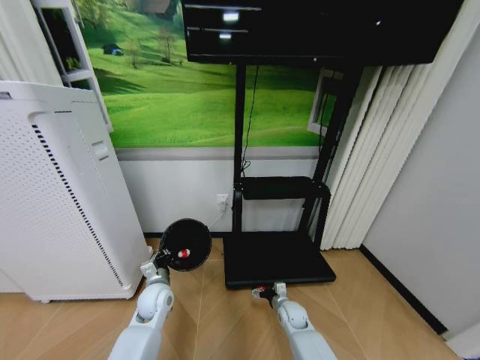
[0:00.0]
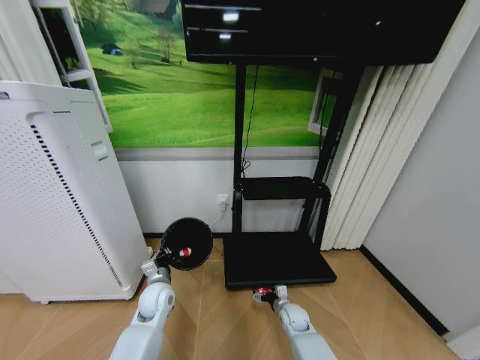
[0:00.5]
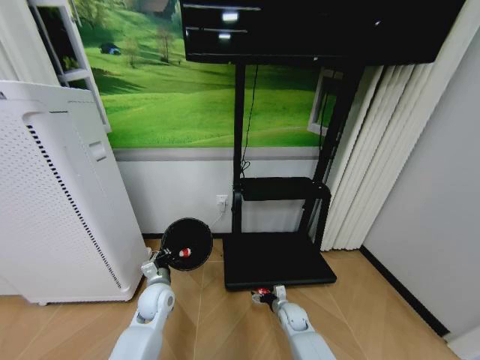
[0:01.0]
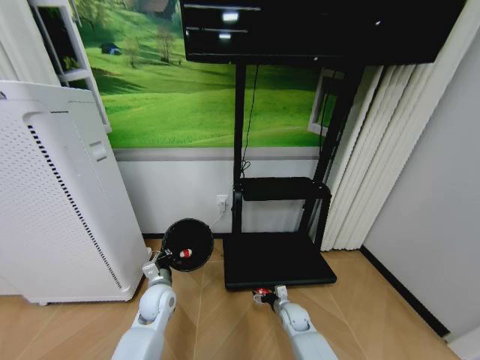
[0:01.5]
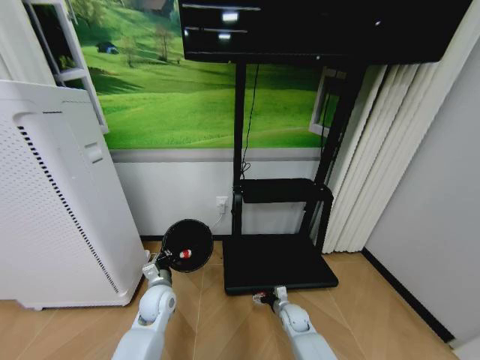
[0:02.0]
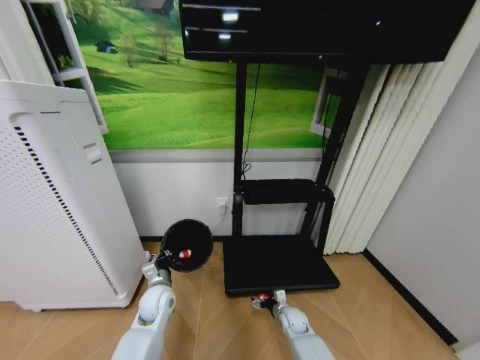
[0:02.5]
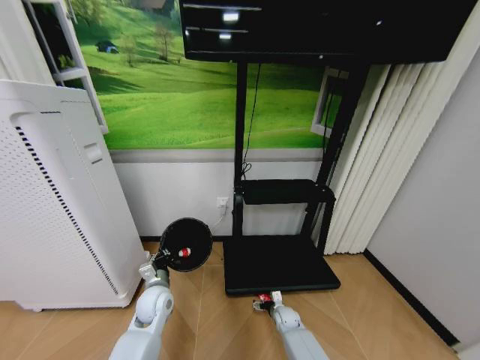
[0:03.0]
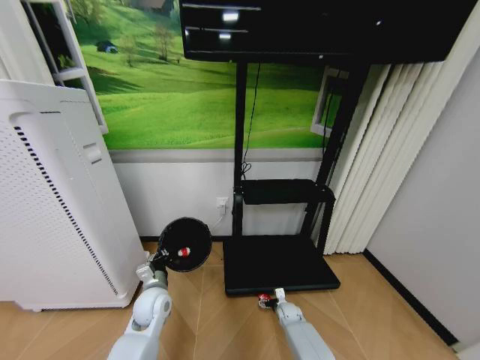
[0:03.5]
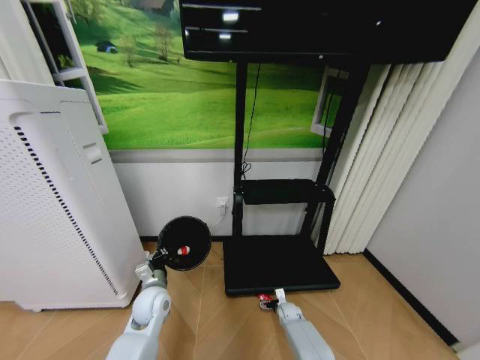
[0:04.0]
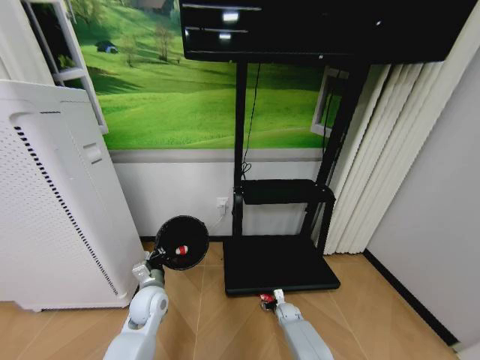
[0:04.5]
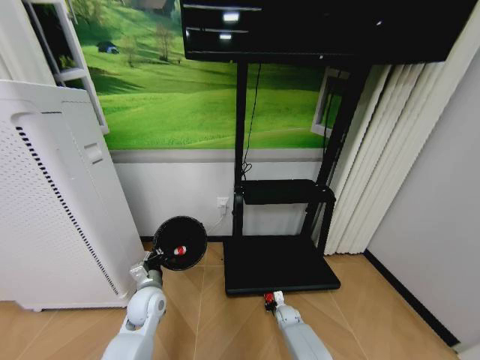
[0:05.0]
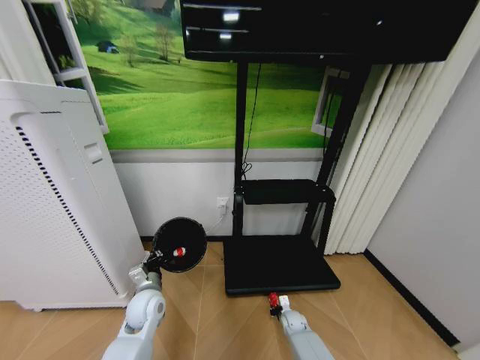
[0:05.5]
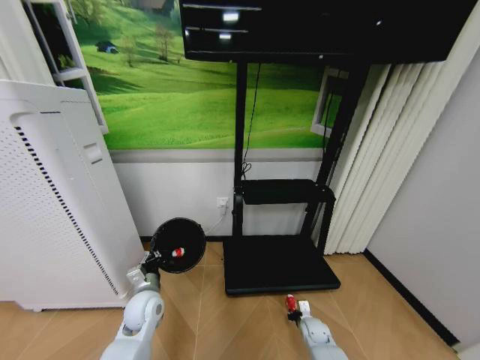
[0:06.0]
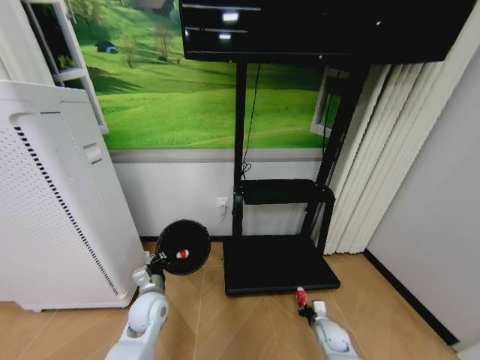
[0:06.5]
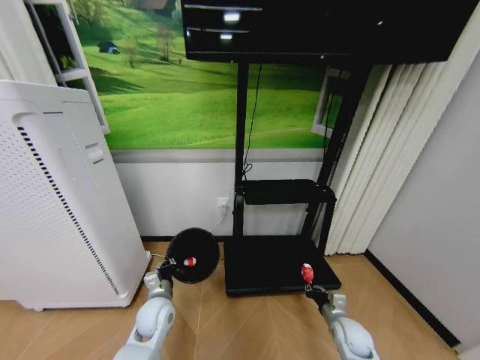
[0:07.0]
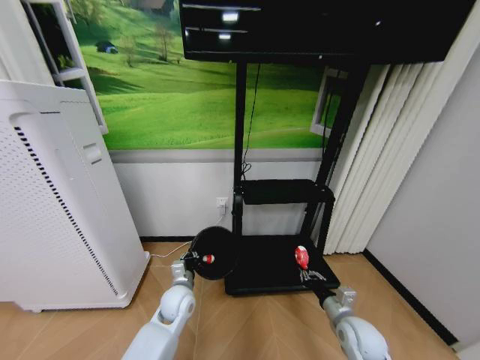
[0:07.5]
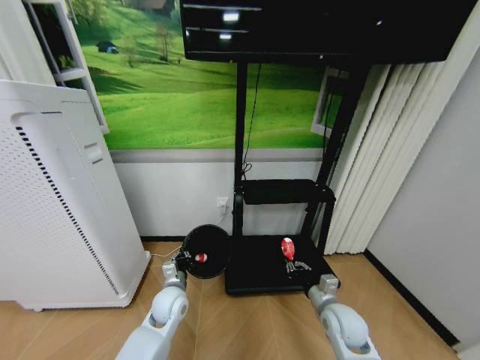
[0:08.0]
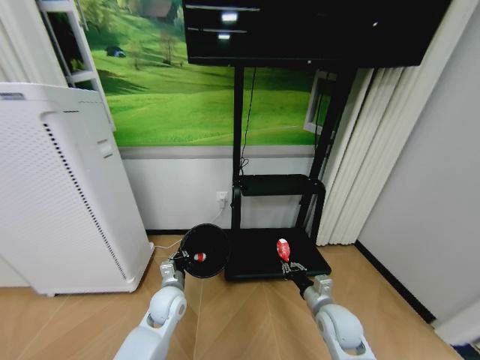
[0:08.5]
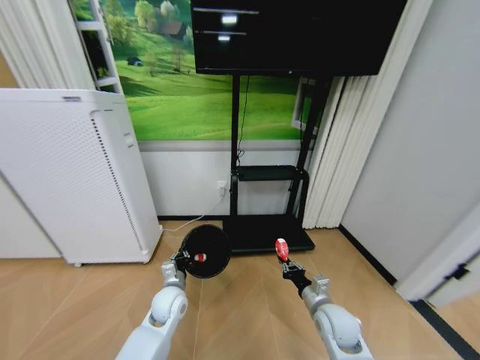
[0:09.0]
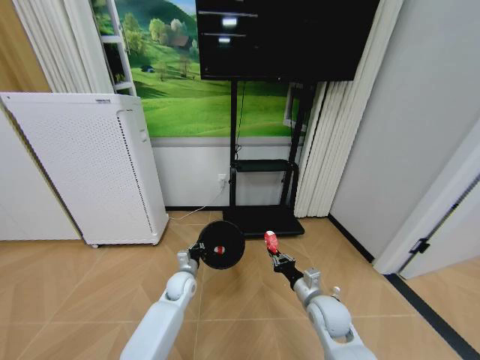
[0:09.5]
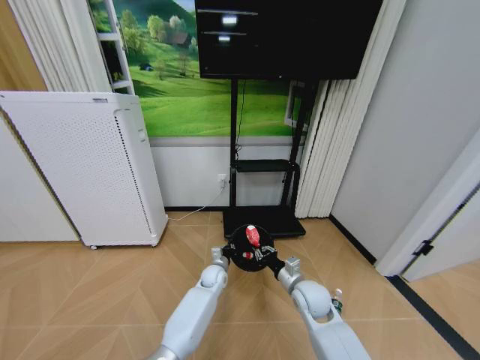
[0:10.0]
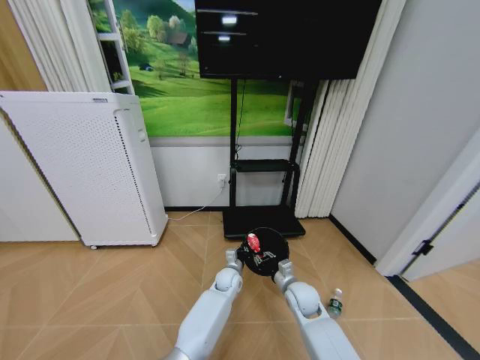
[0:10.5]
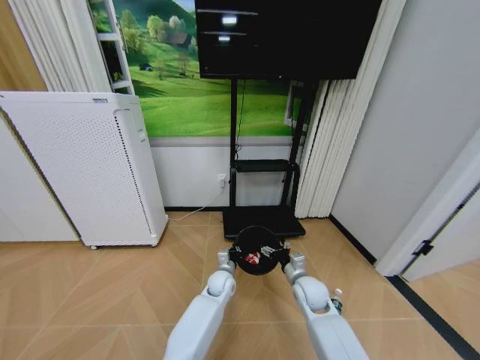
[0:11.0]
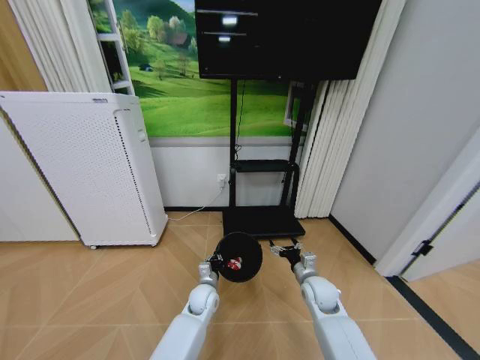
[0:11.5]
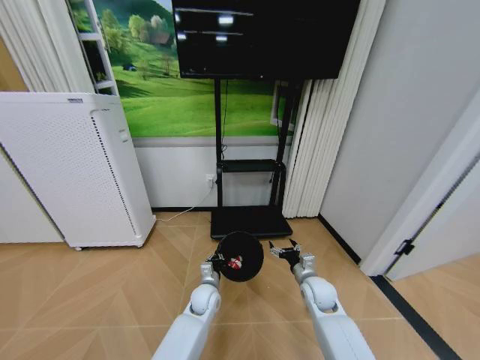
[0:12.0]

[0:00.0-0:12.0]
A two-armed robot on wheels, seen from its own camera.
Task of the whole recording: Pick up the trash bin and place the garbage on the floor into it.
0:00.0 to 0:02.0: There are only small adjustments of the grippers.
0:02.0 to 0:04.0: The right gripper moves downward, roughly 10 cm.
0:04.0 to 0:06.0: The right gripper shifts roughly 10 cm backward and to the right, and closes its fingers.
0:06.0 to 0:08.0: The right gripper moves upward, about 20 cm, while the left gripper moves to the right, approximately 5 cm.
0:08.0 to 0:10.0: The right gripper shifts some 10 cm to the left and forward. The left gripper travels to the right, forward and downward by some 20 cm.
0:10.0 to 0:12.0: The left gripper shifts some 10 cm backward. The right gripper changes place by some 5 cm, and opens.

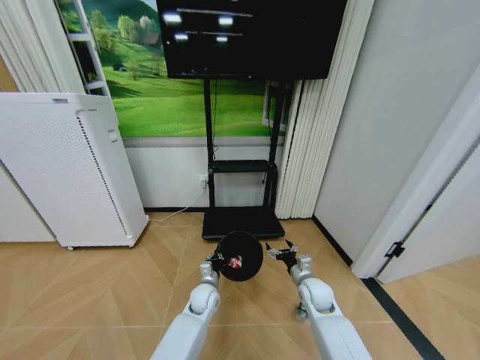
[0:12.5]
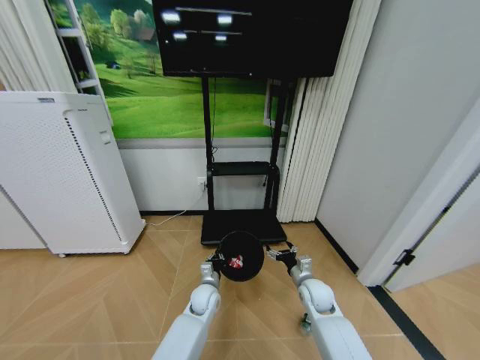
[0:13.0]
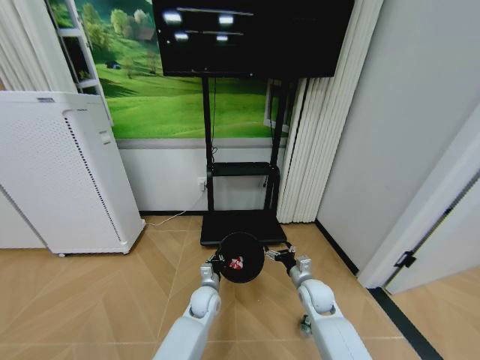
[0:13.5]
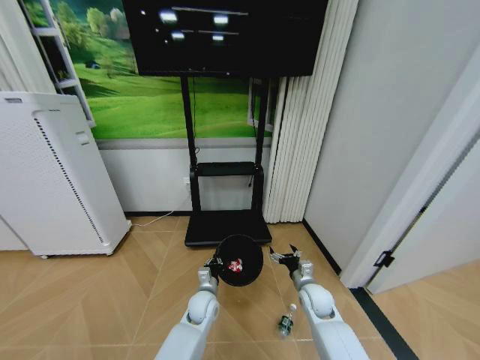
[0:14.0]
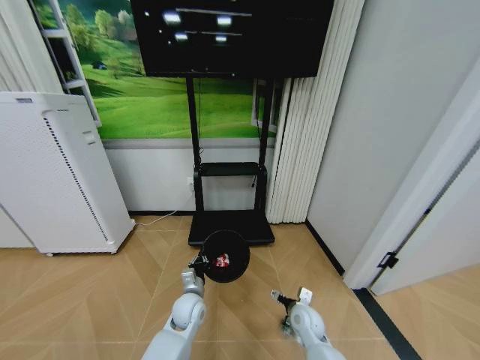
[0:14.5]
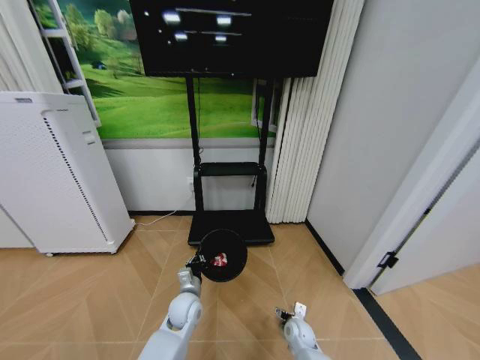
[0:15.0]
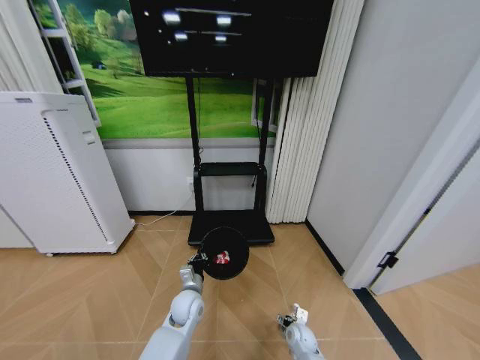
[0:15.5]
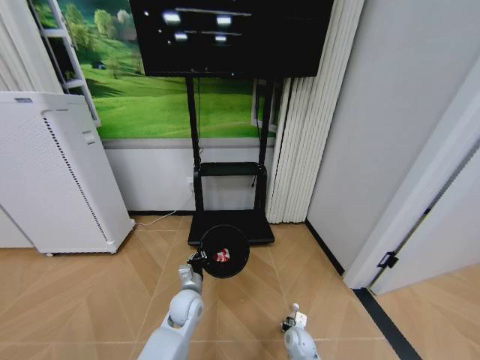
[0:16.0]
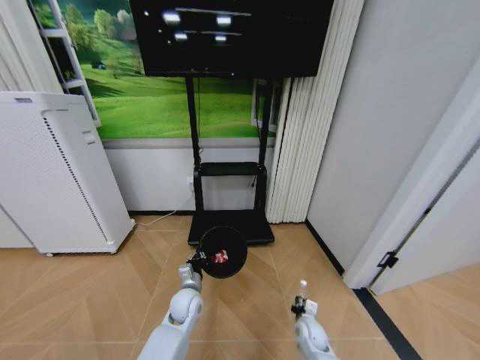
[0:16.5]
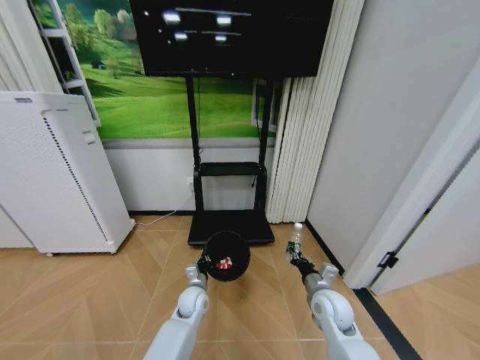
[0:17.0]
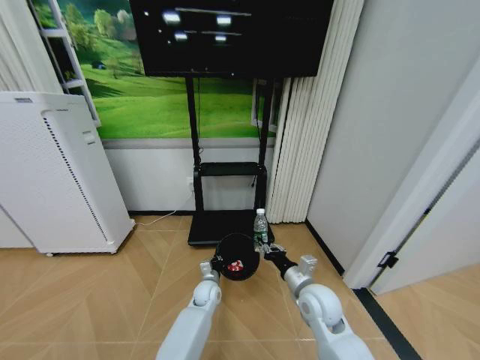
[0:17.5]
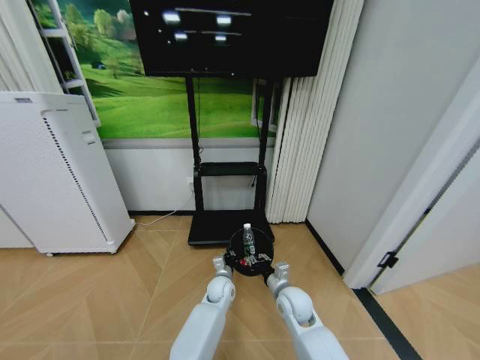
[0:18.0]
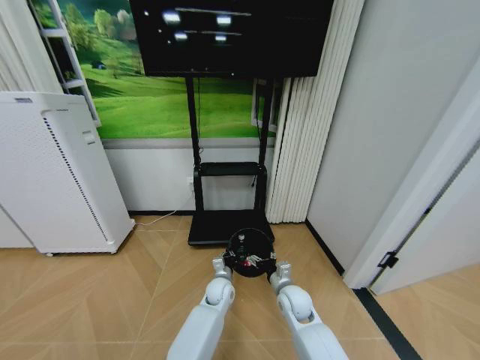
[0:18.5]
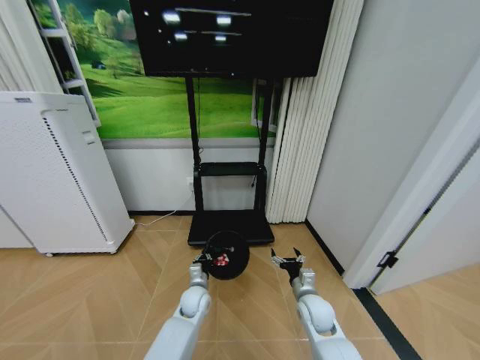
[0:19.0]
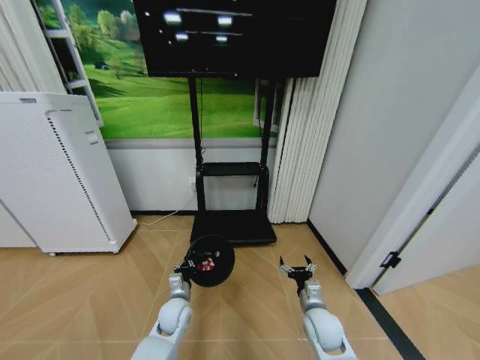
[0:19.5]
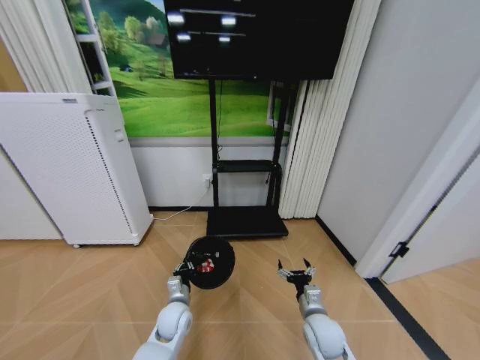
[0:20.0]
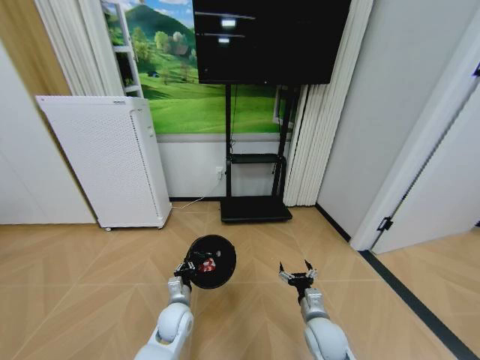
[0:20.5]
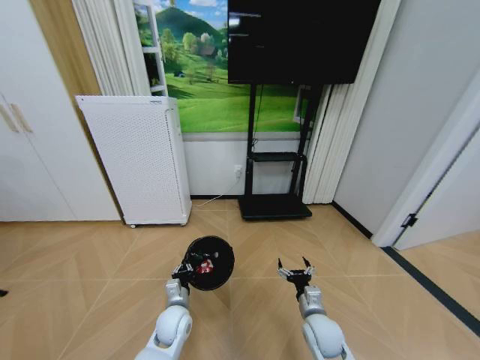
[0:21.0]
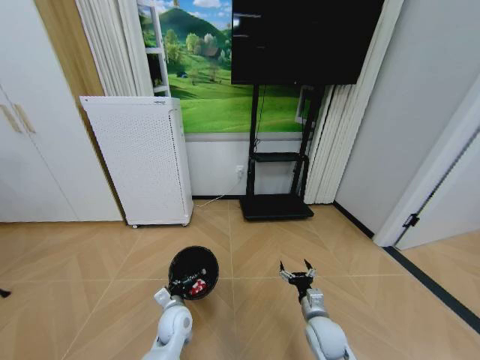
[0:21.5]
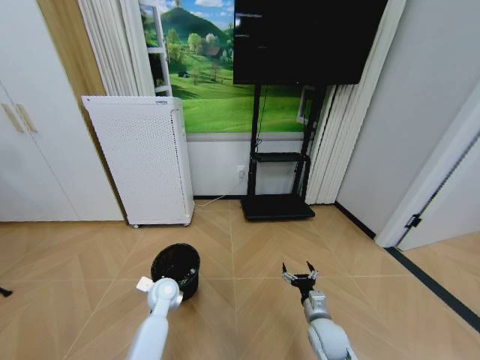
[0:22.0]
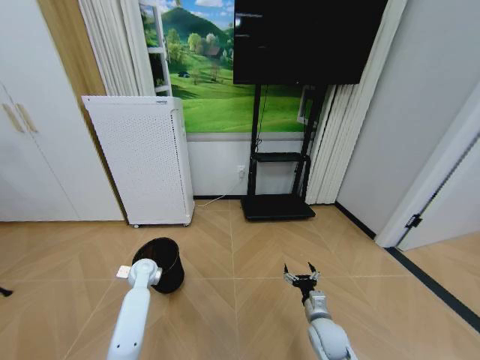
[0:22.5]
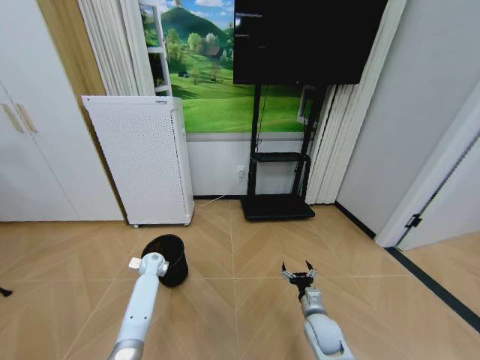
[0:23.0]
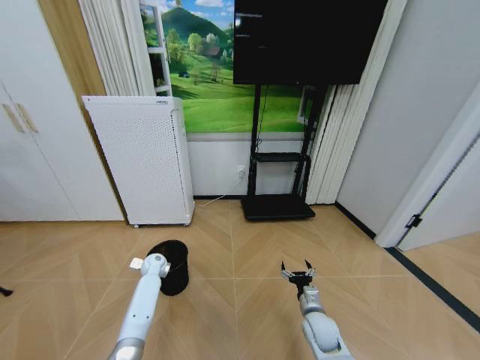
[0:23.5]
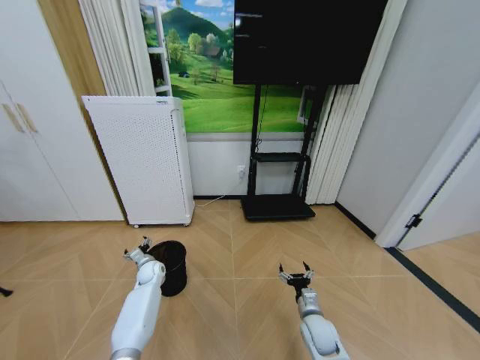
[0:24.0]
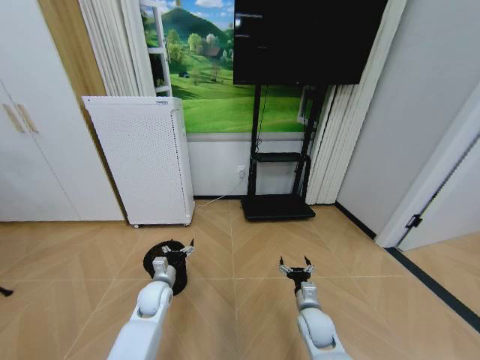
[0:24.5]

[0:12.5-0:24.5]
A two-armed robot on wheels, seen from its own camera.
Task of the whole recording: Pick up the trash bin and place the garbage on the floor into it.
0:12.5 to 0:14.5: The right gripper shifts approximately 5 cm downward. Meanwhile the left gripper shifts by approximately 5 cm.
0:14.5 to 0:16.5: The right gripper moves downward, approximately 10 cm, and closes up.
0:16.5 to 0:18.5: The right gripper moves upward and to the left, about 15 cm, and opens up; the left gripper goes roughly 10 cm to the right and forward.
0:18.5 to 0:20.5: The left gripper heads to the left and backward, covering roughly 15 cm, while the right gripper goes about 10 cm backward and to the right.
0:20.5 to 0:22.5: The right gripper ends up some 5 cm from where it was. Meanwhile the left gripper heads to the left and forward, covering approximately 20 cm.
0:22.5 to 0:24.5: The left gripper moves backward and to the right, roughly 10 cm, and opens its fingers.

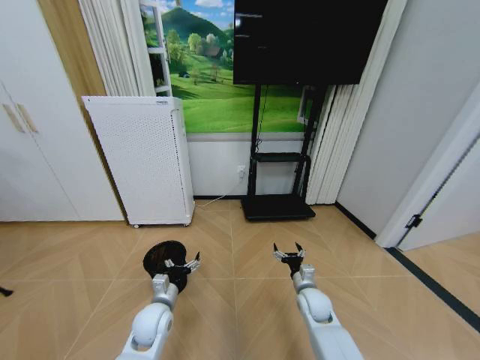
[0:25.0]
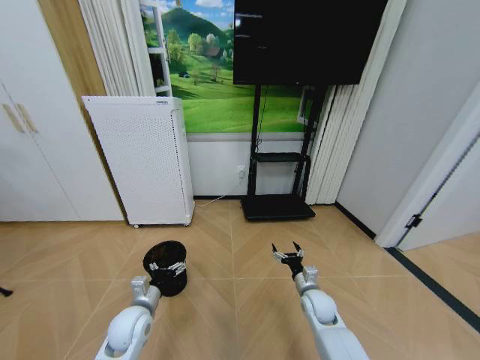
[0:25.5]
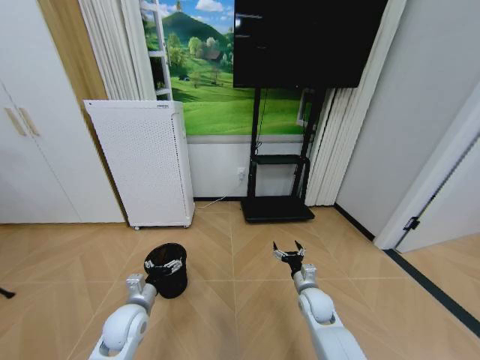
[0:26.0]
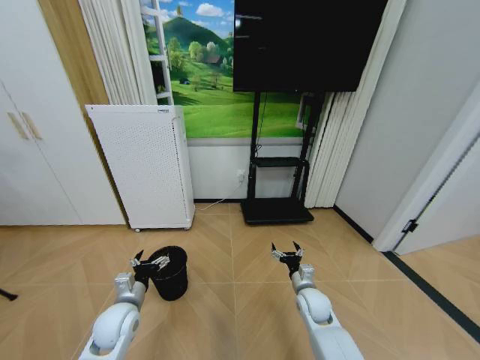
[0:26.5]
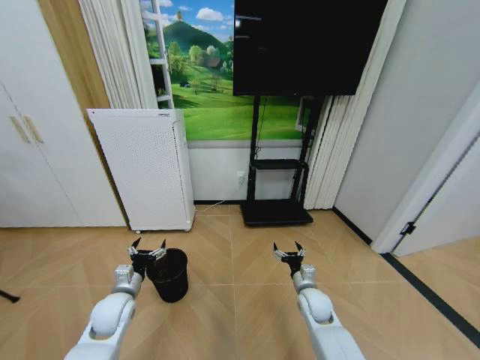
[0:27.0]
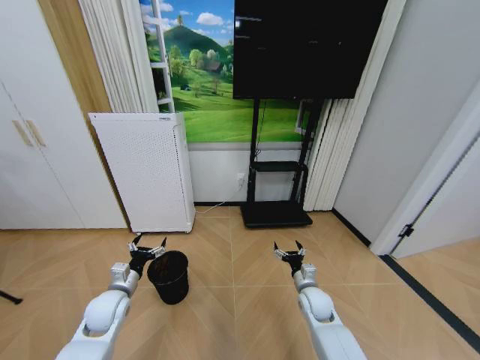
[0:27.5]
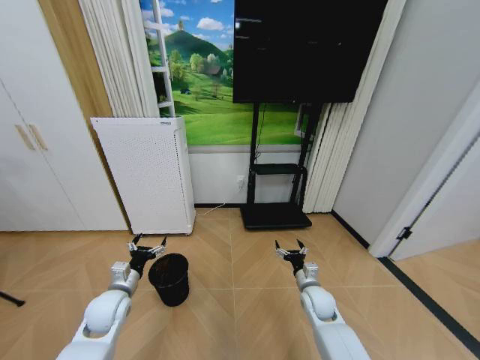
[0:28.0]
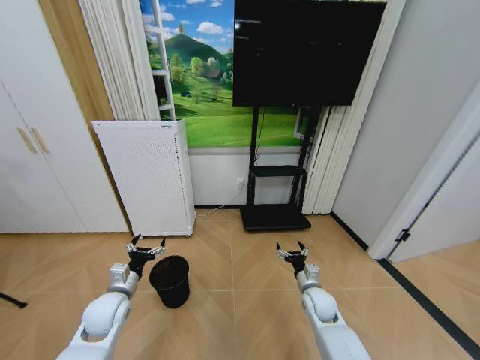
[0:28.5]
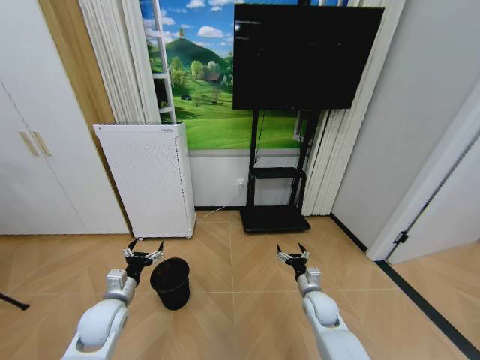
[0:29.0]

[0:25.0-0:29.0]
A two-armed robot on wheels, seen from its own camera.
Task of the whole recording: Pick up the trash bin and place the garbage on the floor into it.
0:25.0 to 0:27.0: The left gripper heads to the left, covering approximately 10 cm.
0:27.0 to 0:29.0: There are only small adjustments of the grippers.
